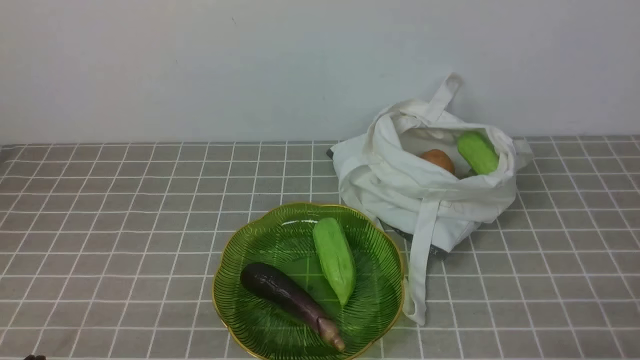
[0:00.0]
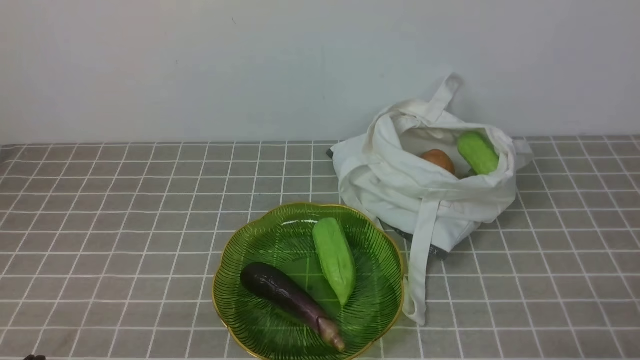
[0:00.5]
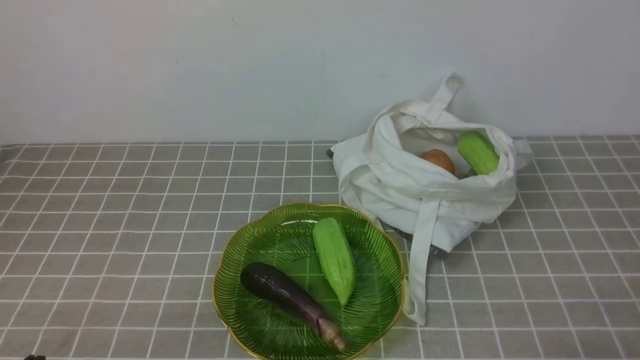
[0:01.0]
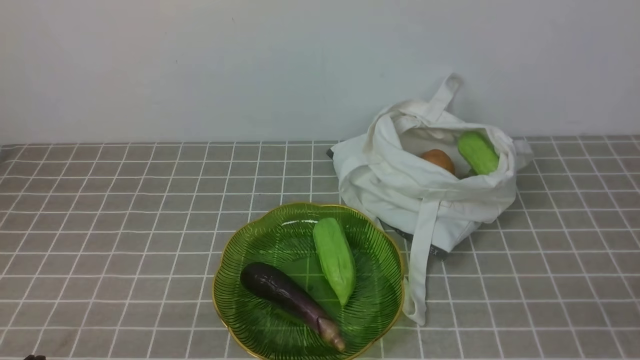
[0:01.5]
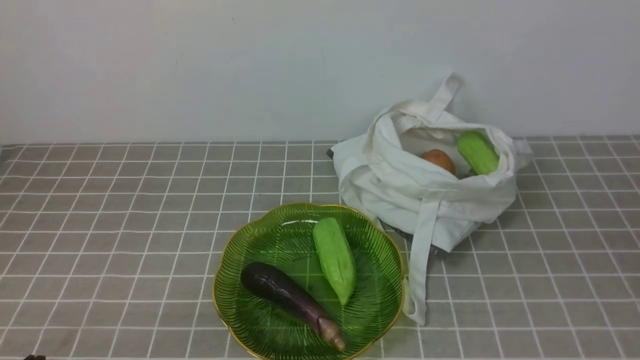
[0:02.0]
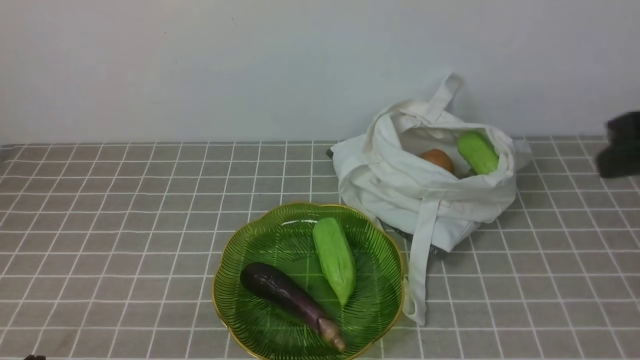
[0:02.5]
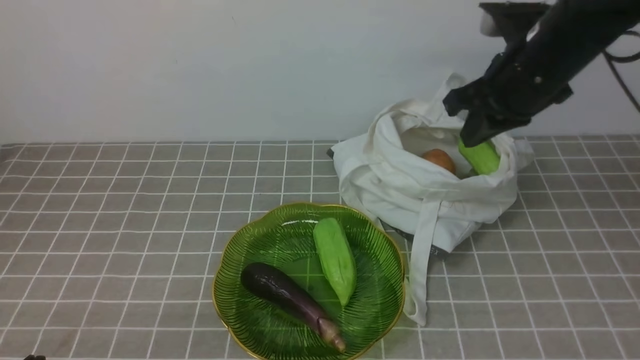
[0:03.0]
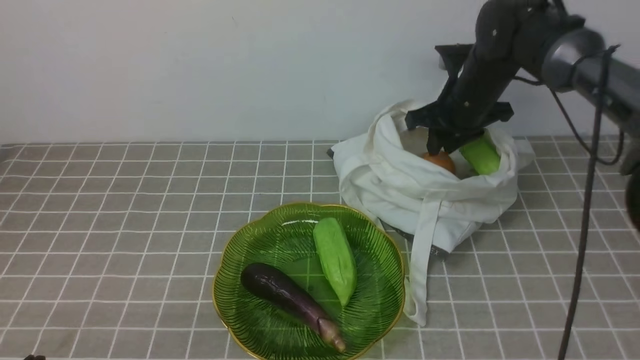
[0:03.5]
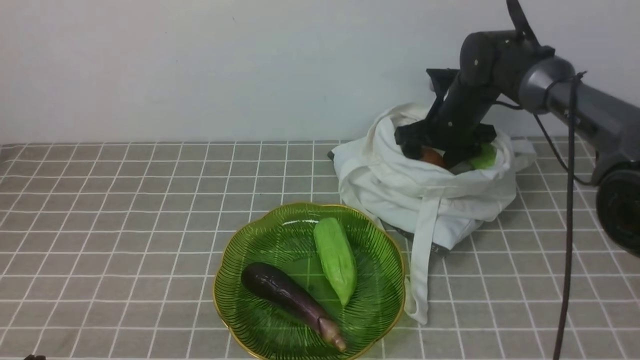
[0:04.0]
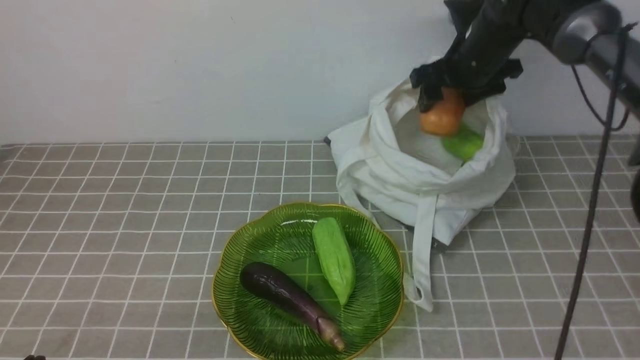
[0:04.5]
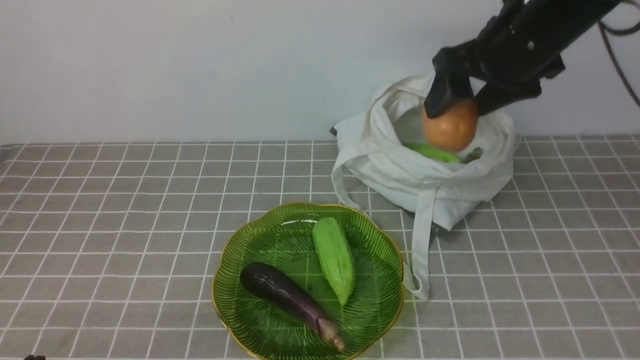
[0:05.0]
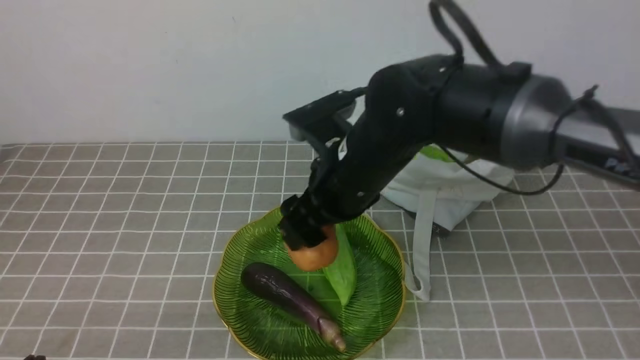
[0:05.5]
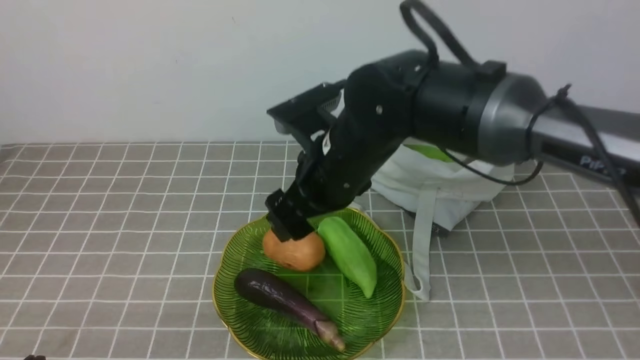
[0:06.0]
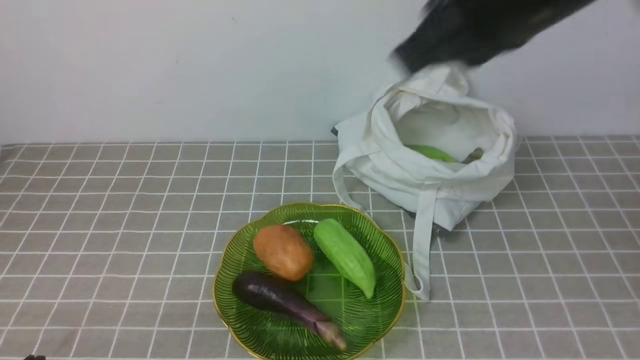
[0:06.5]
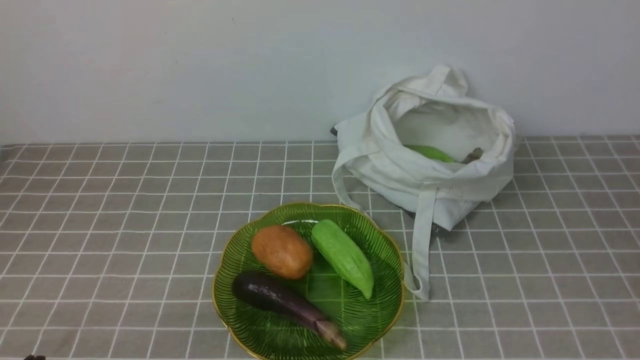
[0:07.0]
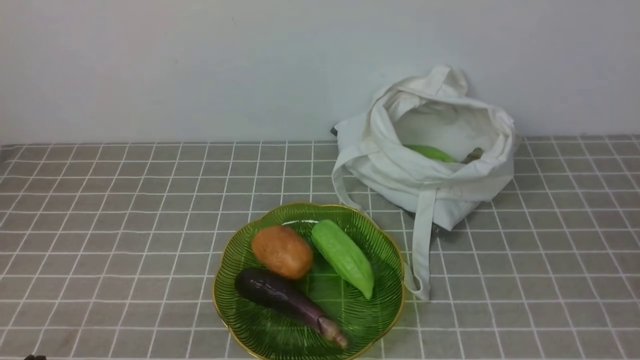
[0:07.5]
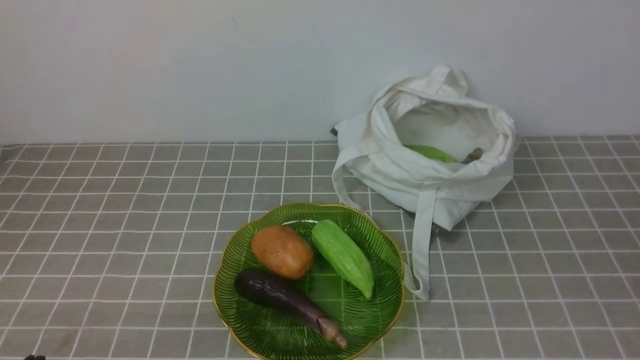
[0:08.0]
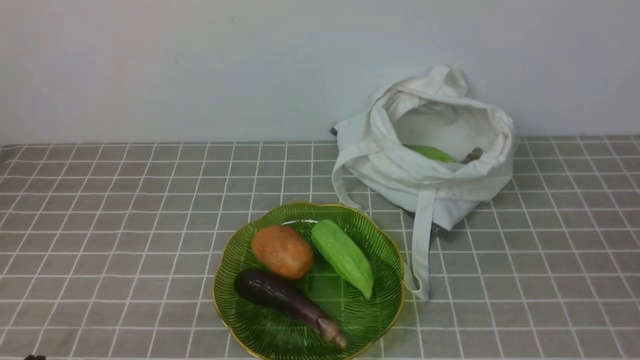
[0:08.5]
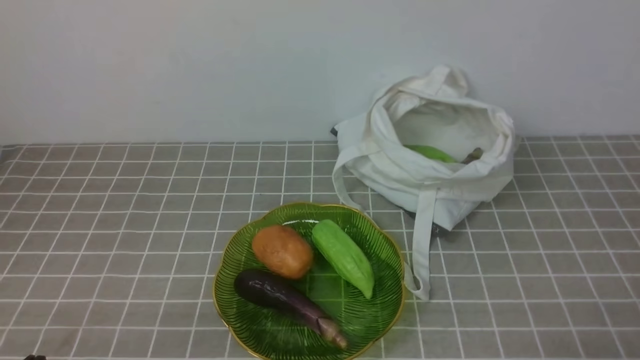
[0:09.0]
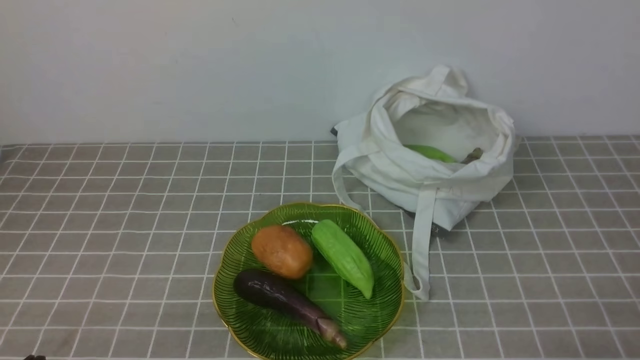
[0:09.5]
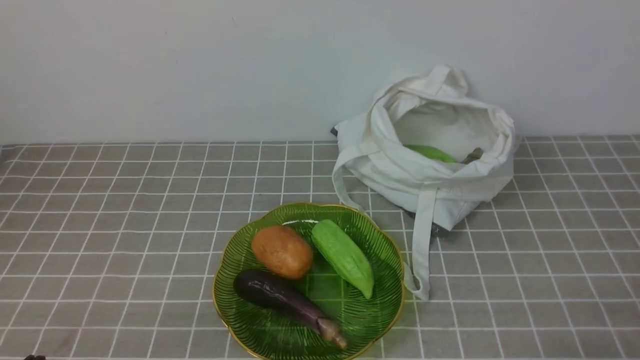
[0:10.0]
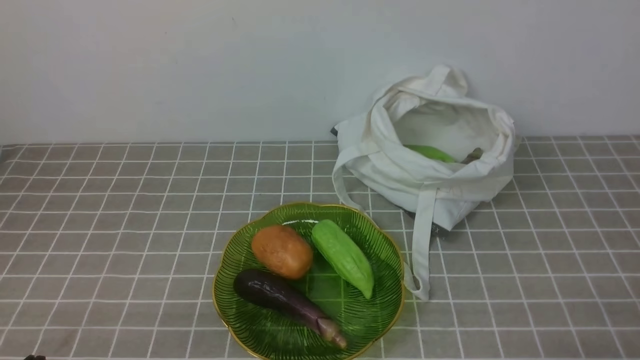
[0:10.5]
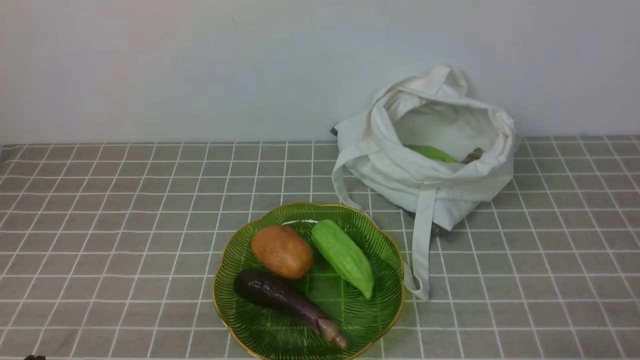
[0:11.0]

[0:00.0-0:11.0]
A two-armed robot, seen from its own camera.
Task of the whole recording: take vegetables from bag on grey coffee tablecloth place on plate.
Step, 0:00.0 to 0:04.0: Grasp the potato with right gripper.
Step, 0:04.5 to 0:06.0: Place the potato on the plate with right gripper.
0:02.0 to 0:03.5: The right gripper shifts approximately 40 cm forward, and opens.
0:03.5 to 0:05.5: The right gripper moves backward and to the left, roughly 20 cm, and opens its fingers.
0:05.5 to 0:07.5: The right gripper is displaced backward and to the right by about 40 cm, and closes its fingers.
